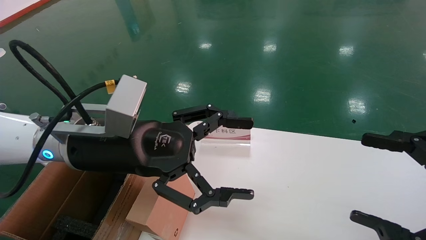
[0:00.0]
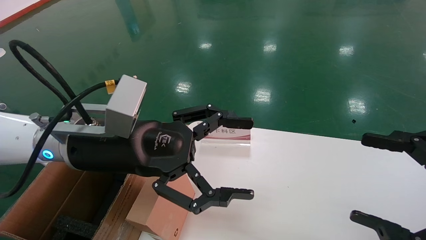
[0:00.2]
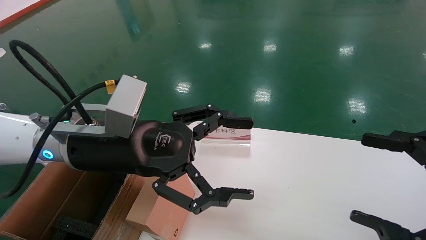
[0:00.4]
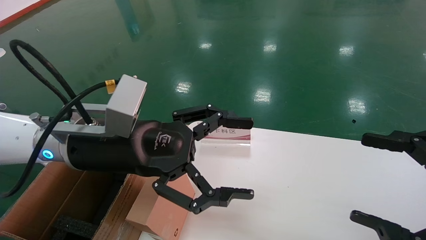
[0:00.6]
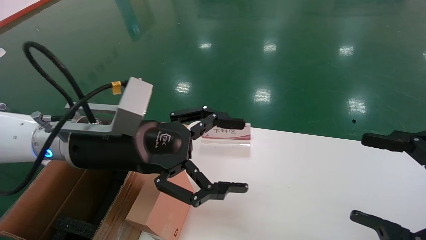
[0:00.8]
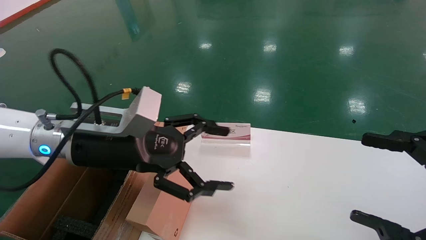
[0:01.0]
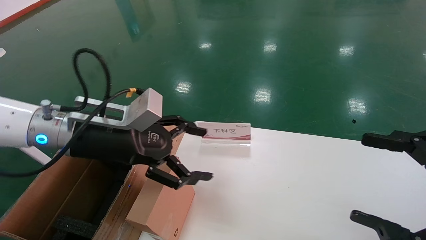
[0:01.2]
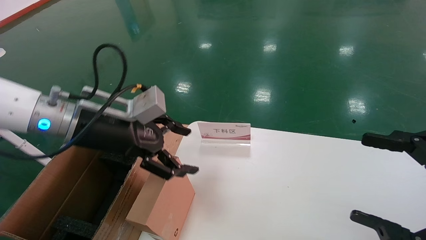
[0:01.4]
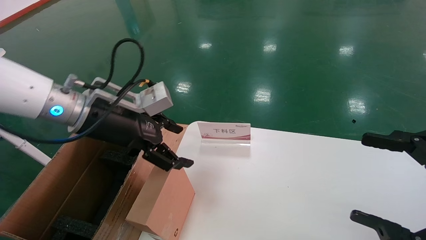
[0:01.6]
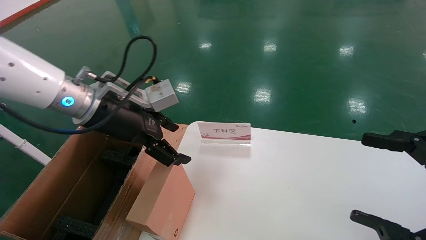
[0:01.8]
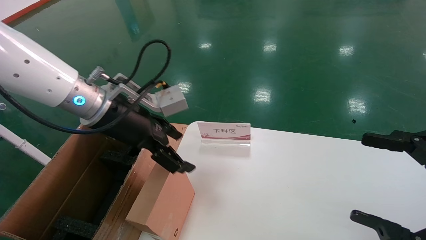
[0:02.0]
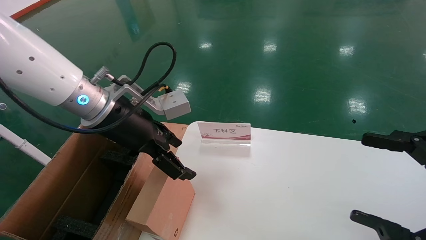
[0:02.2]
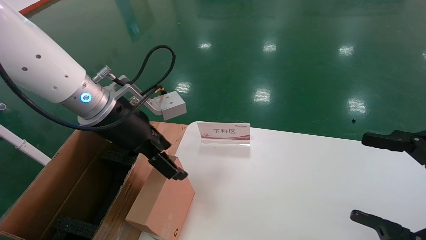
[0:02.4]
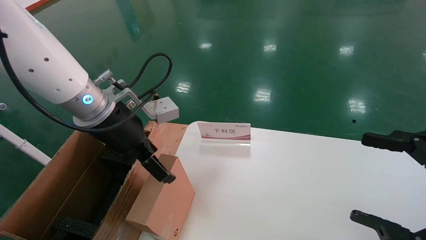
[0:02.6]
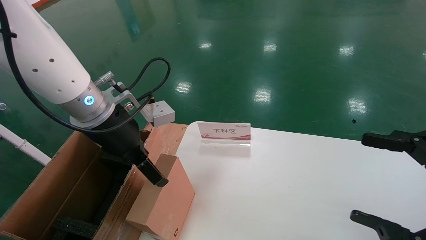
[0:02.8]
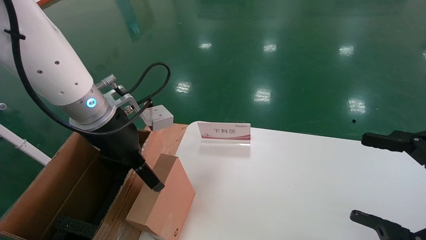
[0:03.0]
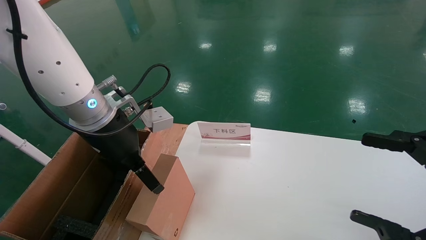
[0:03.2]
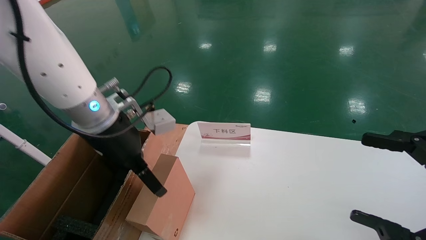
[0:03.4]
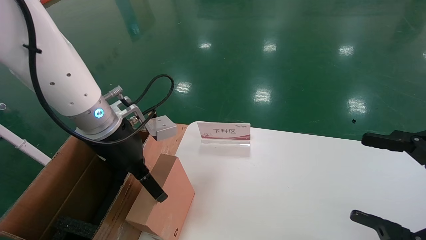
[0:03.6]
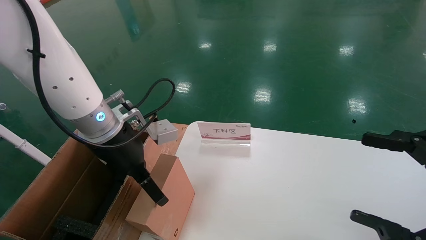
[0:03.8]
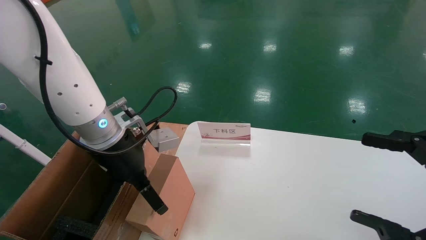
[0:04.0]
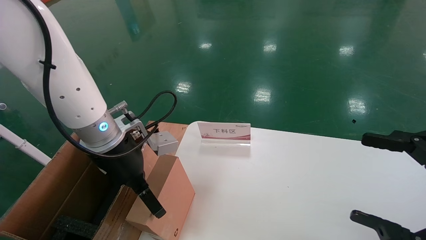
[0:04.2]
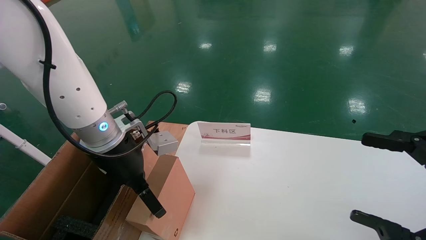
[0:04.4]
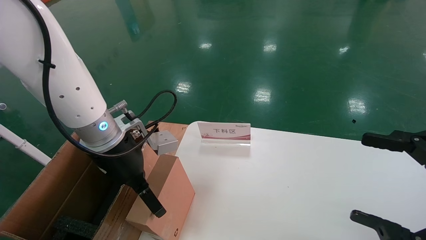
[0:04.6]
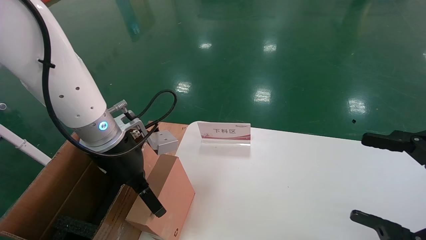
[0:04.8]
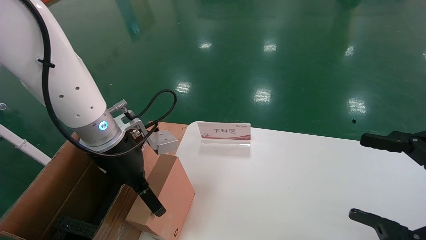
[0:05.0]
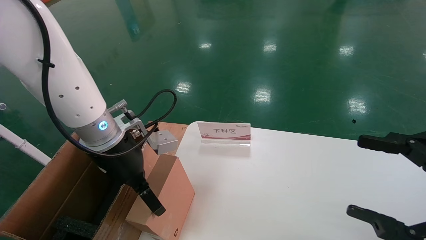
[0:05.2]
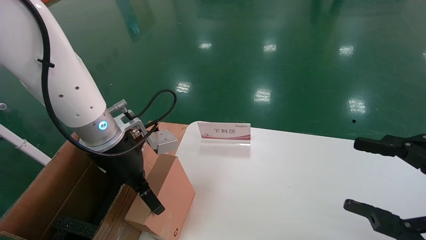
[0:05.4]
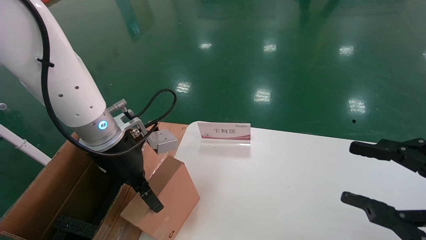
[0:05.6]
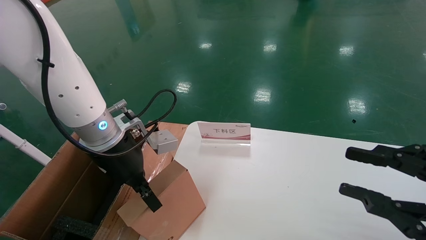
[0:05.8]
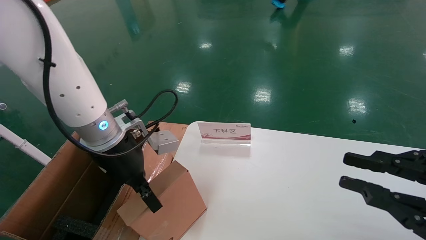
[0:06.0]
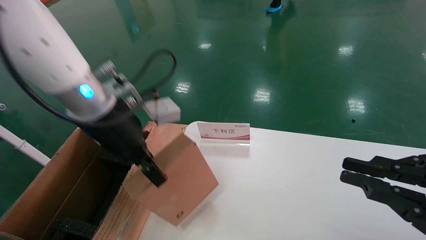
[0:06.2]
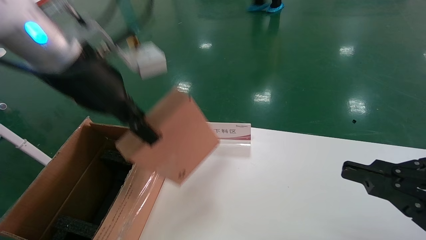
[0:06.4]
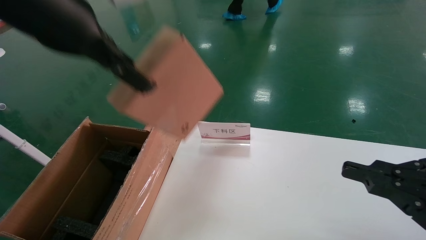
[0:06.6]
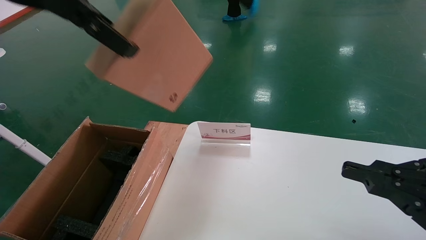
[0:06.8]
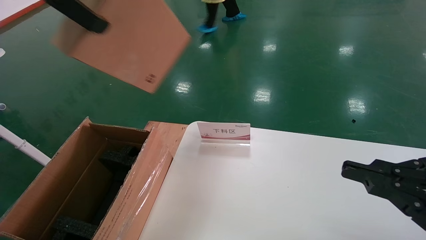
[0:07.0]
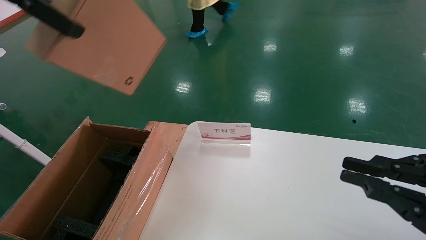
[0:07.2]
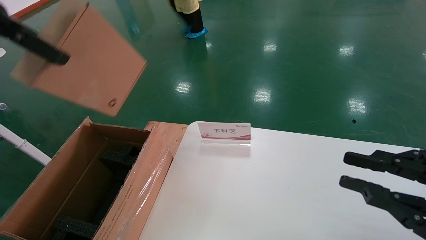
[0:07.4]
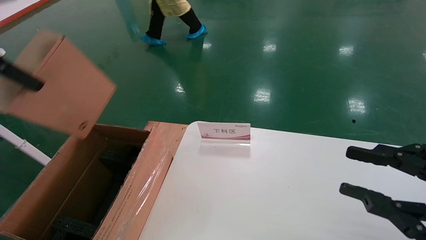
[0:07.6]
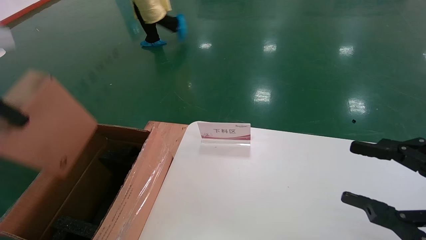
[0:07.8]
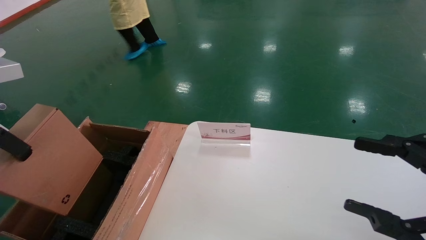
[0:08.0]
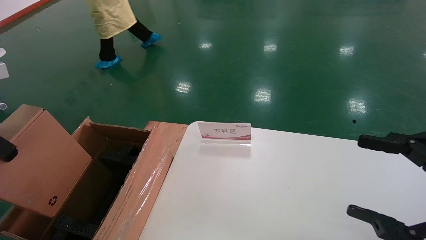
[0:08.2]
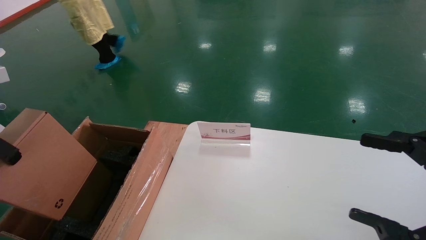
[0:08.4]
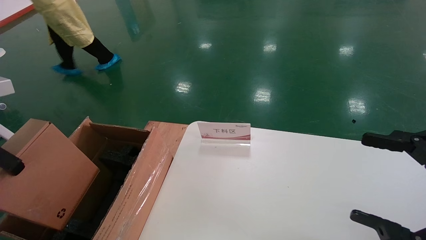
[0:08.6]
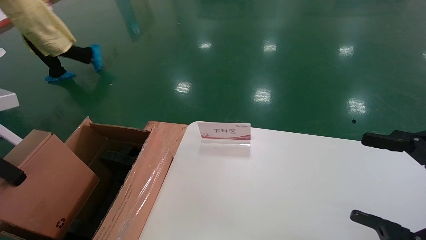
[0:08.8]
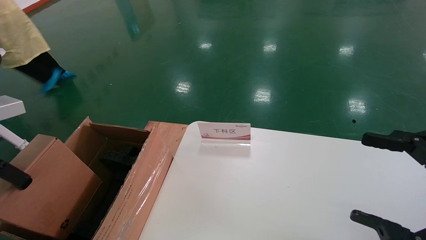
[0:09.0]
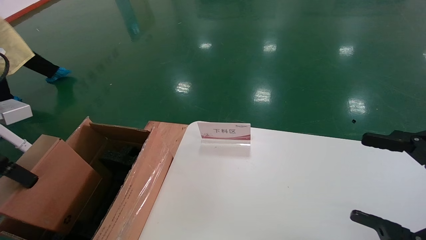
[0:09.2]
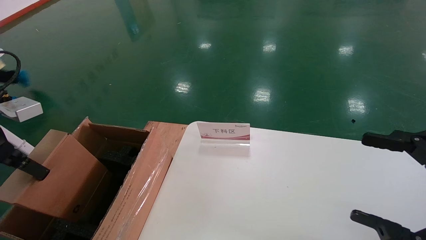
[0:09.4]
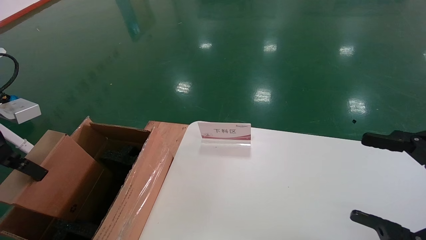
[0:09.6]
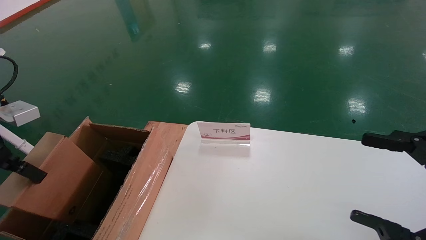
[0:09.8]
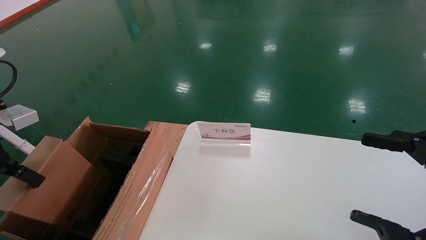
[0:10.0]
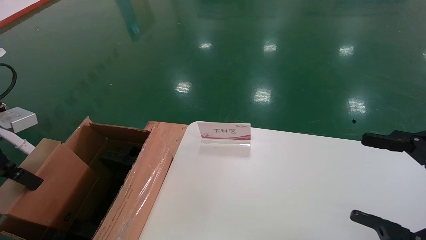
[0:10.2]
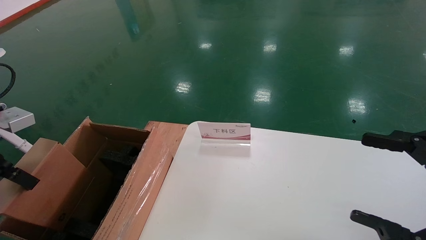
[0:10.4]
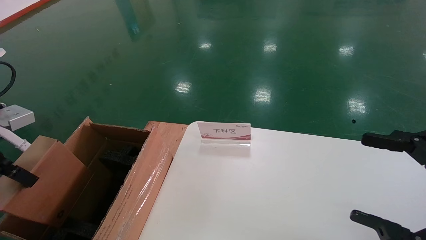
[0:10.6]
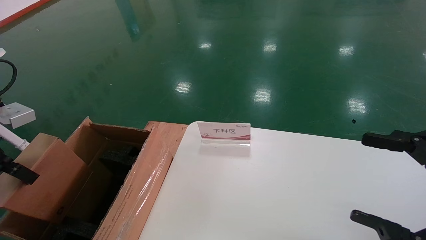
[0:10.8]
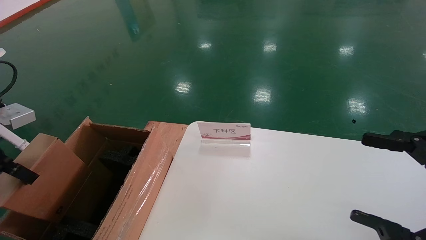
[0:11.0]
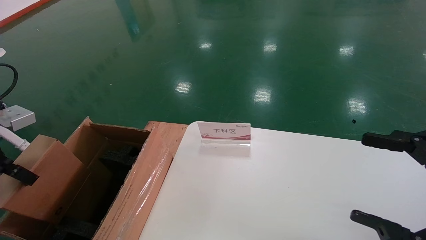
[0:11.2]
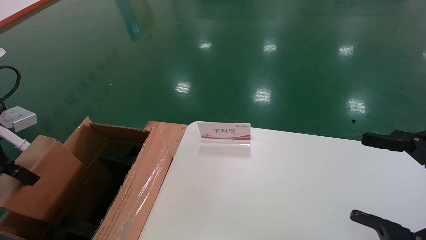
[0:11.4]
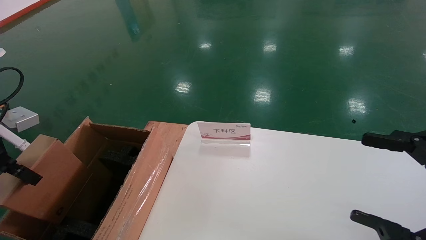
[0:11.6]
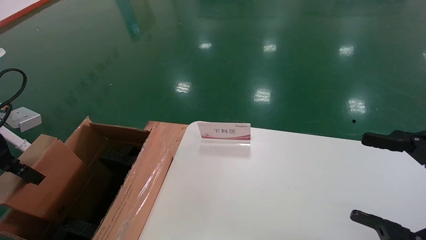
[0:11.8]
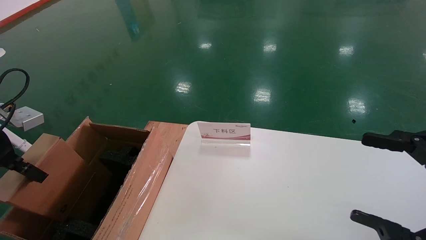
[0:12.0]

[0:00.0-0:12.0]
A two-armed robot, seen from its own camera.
Task of the whole recording: pick up the small cardboard box and load it into the large cardboard box.
Step, 0:01.0 to 0:05.8: Pick up the mouse and power cord box.
0:00.0 to 0:01.6: The left gripper shifts roughly 5 cm forward.
0:03.0 to 0:04.4: There are only small adjustments of the grippers.
0:04.4 to 0:06.0: The right gripper closes its fingers, while the left gripper closes up.
0:06.0 to 0:07.6: The left gripper moves upward, to the left and backward, about 25 cm.
0:07.6 to 0:09.0: The right gripper opens. The left gripper shifts approximately 15 cm downward and to the left.
0:09.0 to 0:10.4: There are only small adjustments of the grippers.
0:10.4 to 0:12.0: The grippers stay close to where they were, moving slightly.

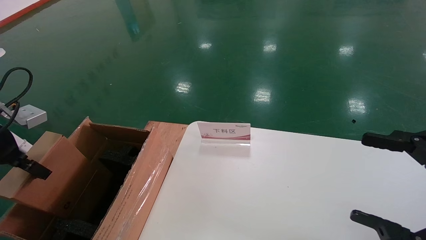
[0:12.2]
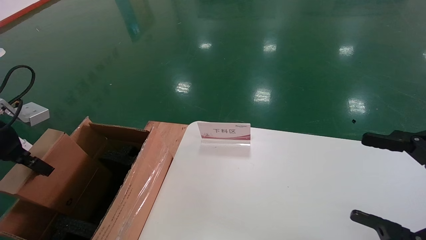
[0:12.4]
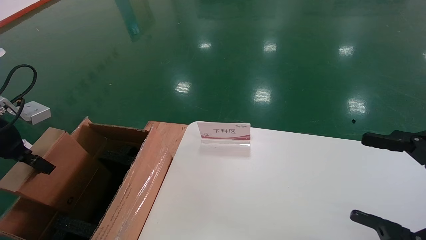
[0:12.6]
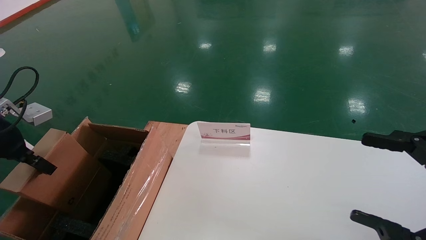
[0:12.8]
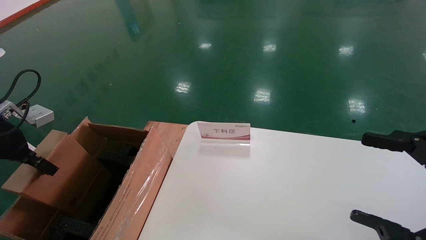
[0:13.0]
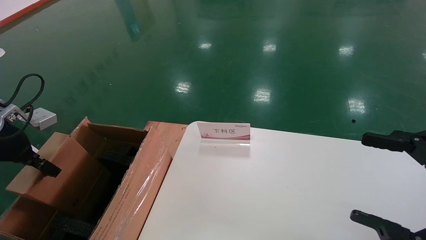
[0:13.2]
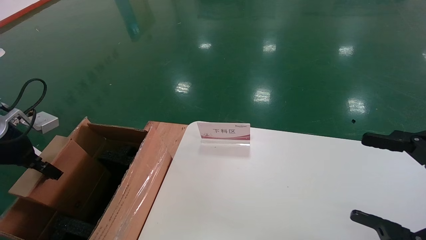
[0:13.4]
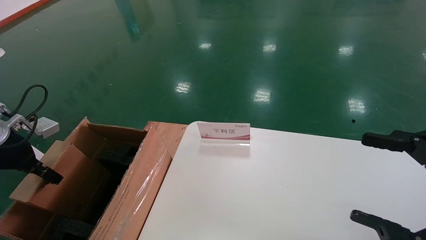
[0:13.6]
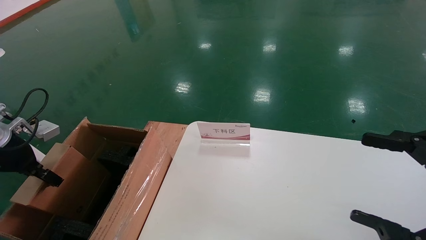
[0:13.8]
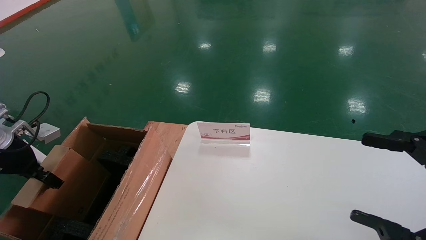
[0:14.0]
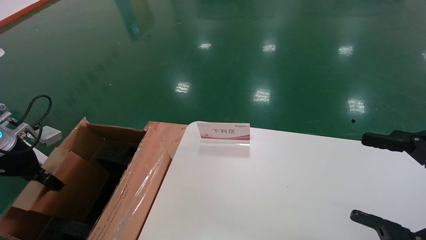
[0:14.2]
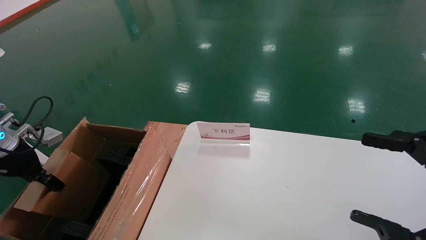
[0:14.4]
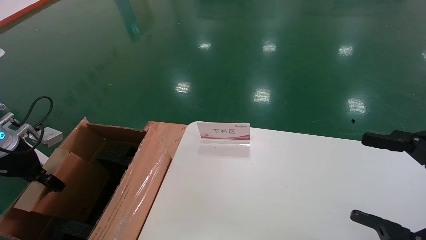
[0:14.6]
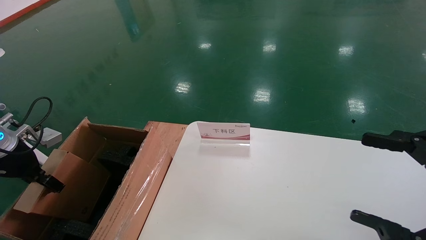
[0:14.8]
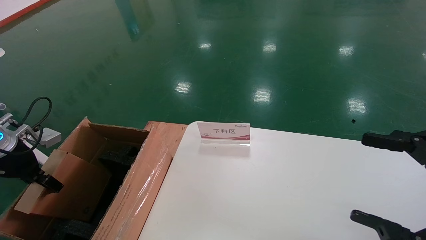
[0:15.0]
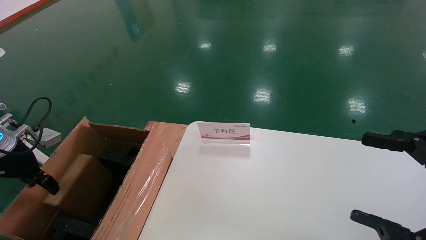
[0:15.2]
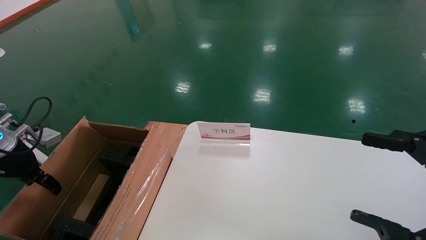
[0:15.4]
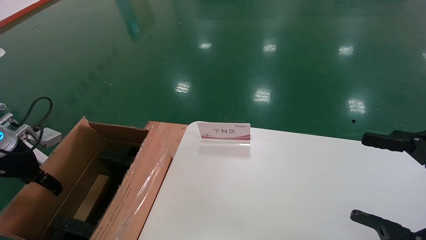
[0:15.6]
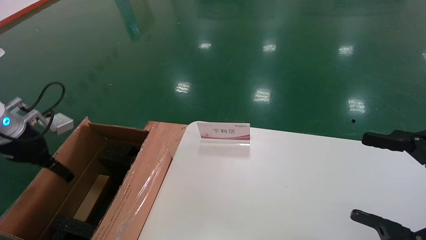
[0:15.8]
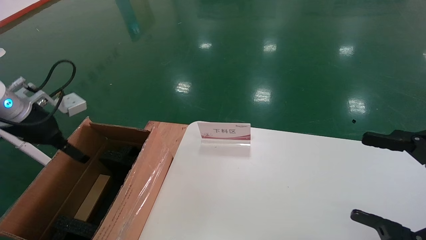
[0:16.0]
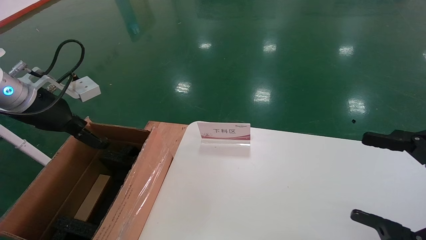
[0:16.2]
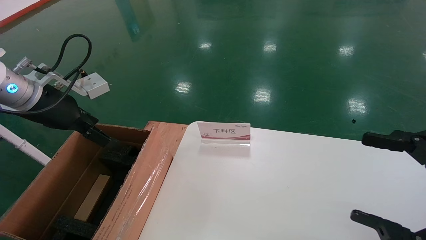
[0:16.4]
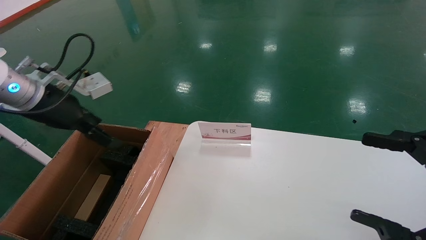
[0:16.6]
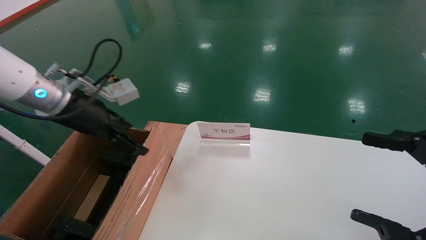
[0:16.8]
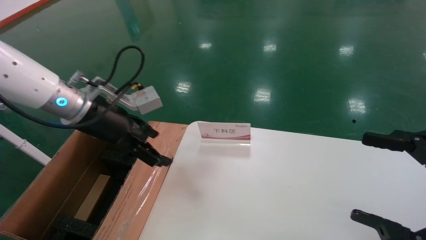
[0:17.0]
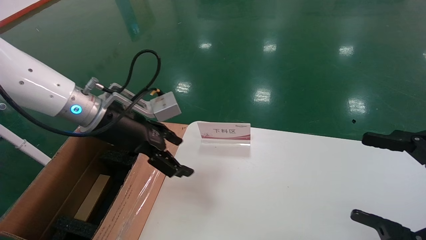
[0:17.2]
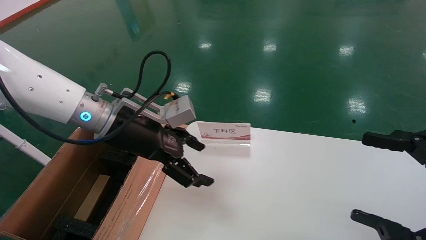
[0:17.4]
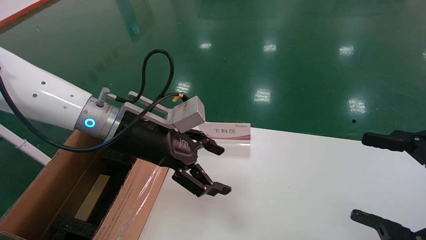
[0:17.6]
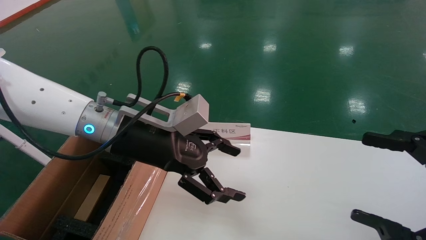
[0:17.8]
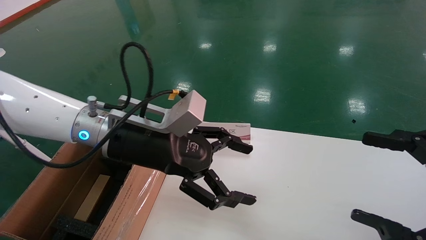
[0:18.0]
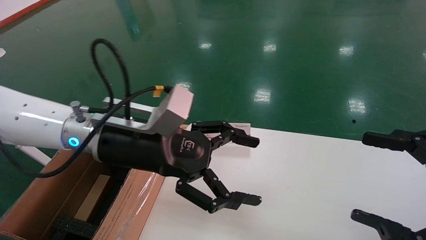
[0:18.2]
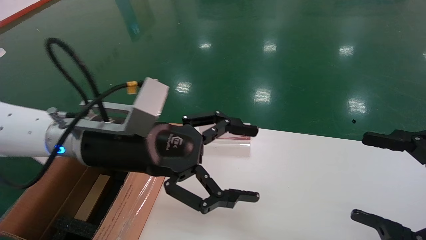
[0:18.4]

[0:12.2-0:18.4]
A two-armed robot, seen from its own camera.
Task of the whole recording: pick up the small cardboard box and load it into the large cardboard box.
Step, 0:12.2 to 0:15.4: Place the mouse and power cord box into the case.
0:12.2 to 0:13.8: The left gripper moves downward, roughly 5 cm.
0:13.8 to 0:15.4: The left gripper opens up.
0:15.4 to 0:16.8: The left gripper goes approximately 20 cm to the right and upward, and opens its fingers.
0:16.8 to 0:18.4: The left gripper travels to the right and backward by about 15 cm.
